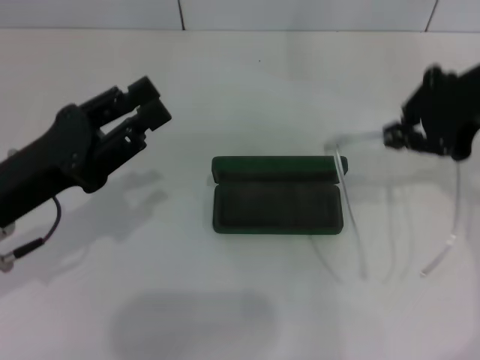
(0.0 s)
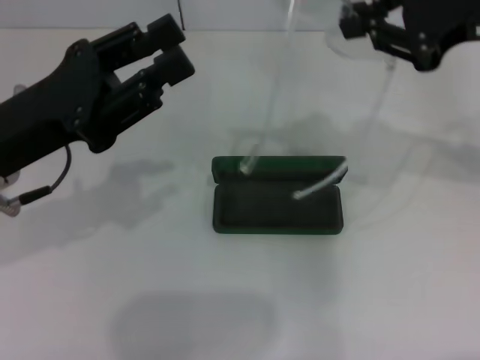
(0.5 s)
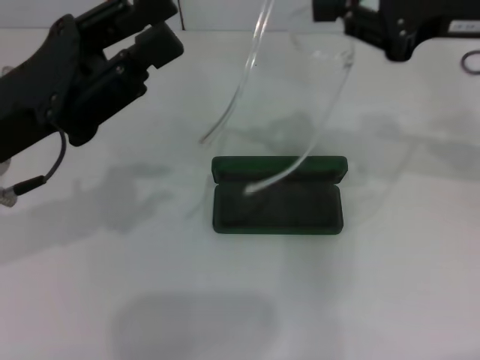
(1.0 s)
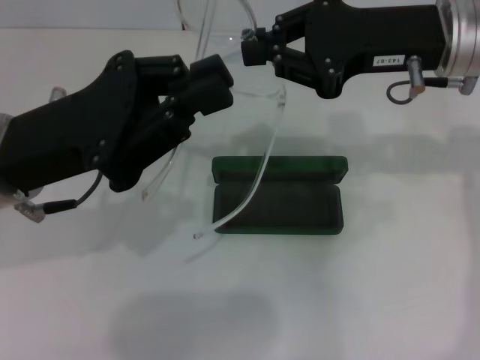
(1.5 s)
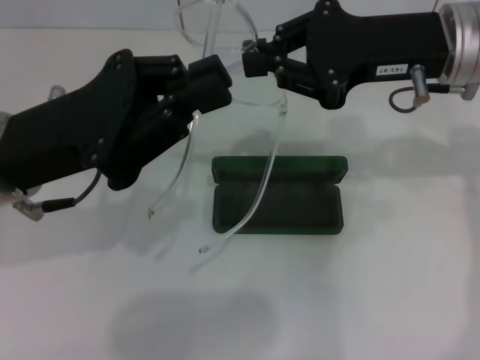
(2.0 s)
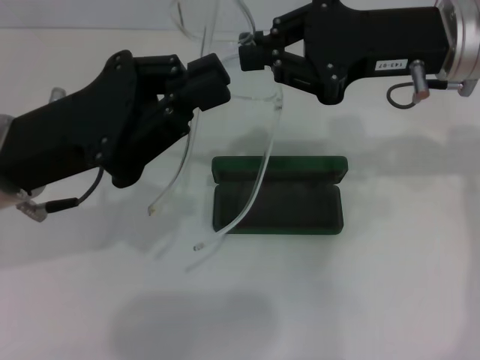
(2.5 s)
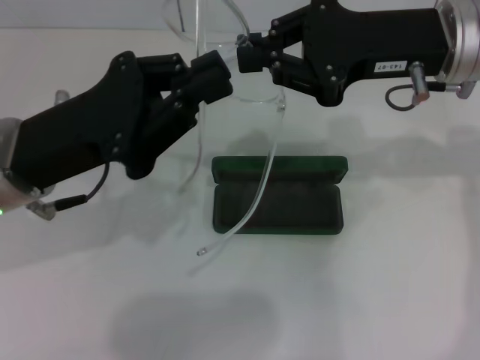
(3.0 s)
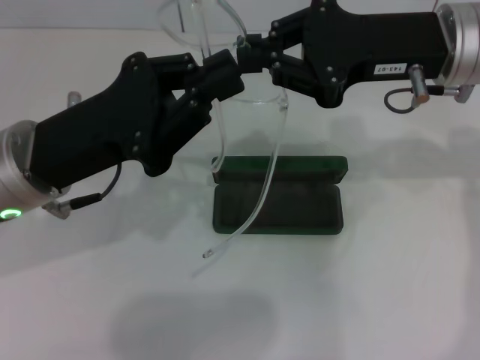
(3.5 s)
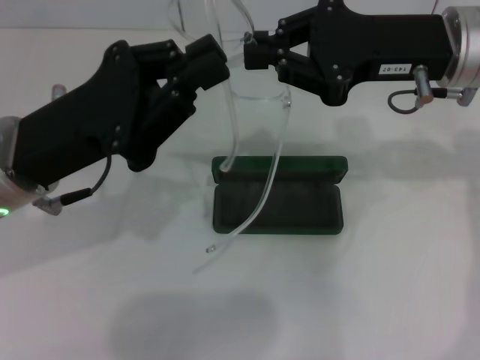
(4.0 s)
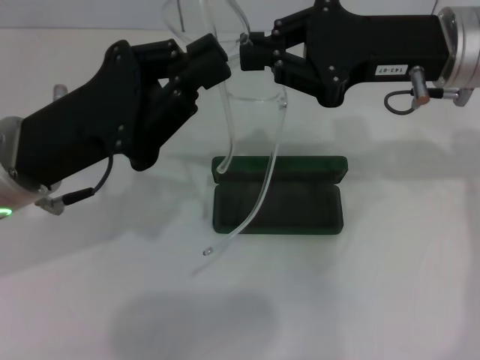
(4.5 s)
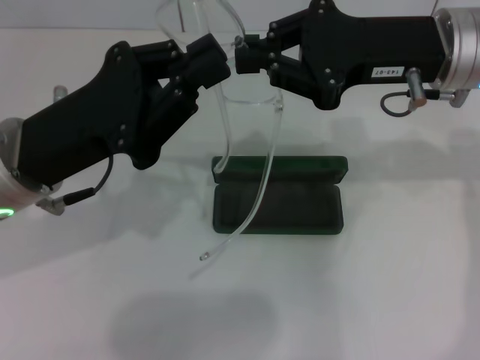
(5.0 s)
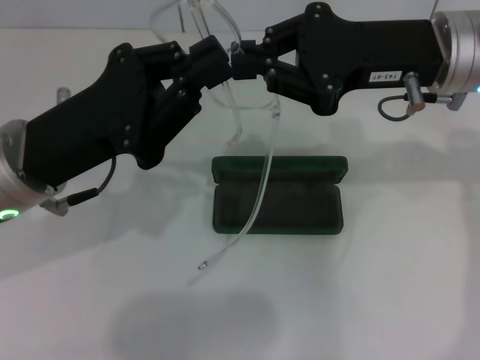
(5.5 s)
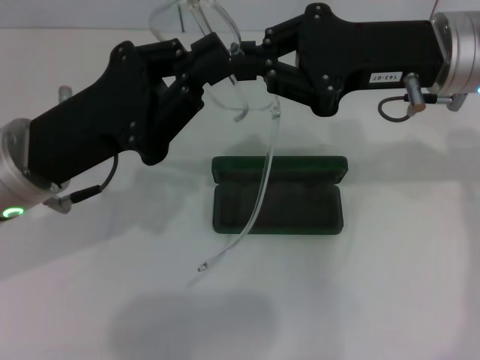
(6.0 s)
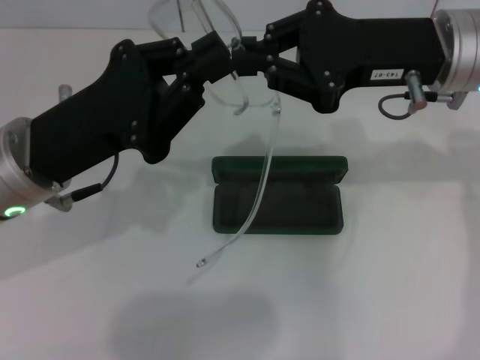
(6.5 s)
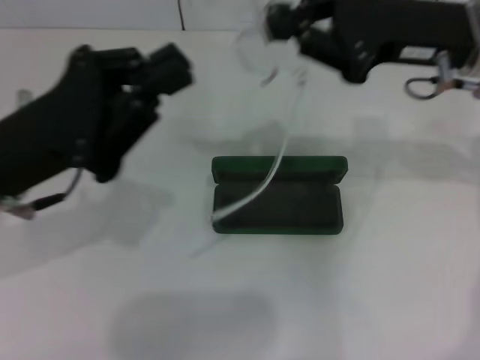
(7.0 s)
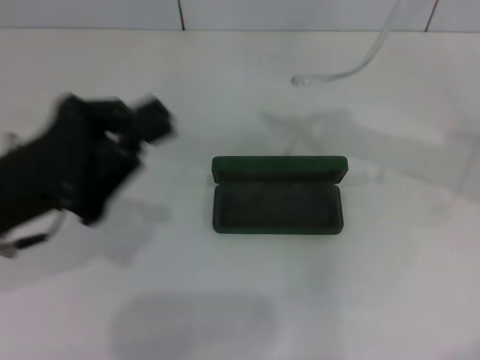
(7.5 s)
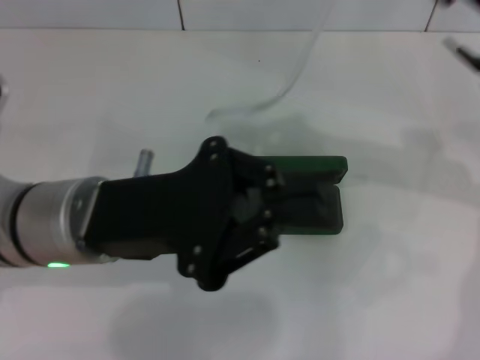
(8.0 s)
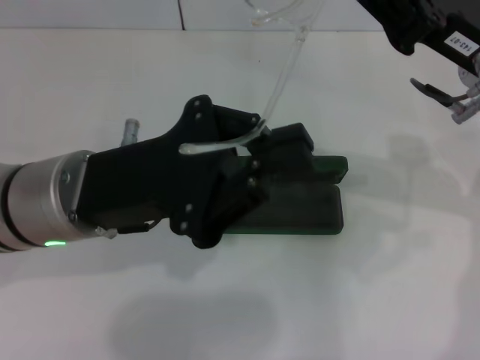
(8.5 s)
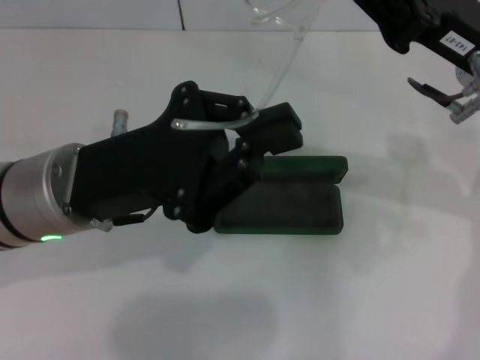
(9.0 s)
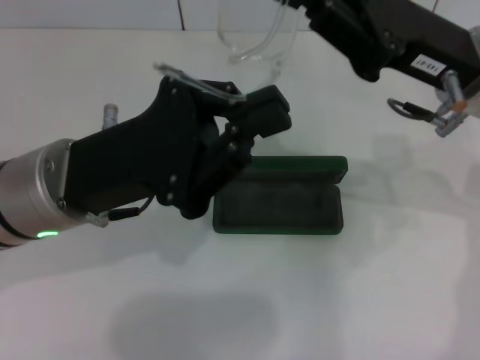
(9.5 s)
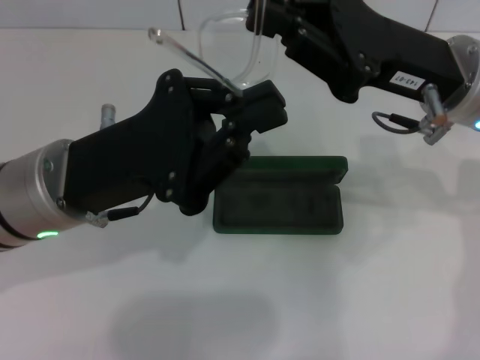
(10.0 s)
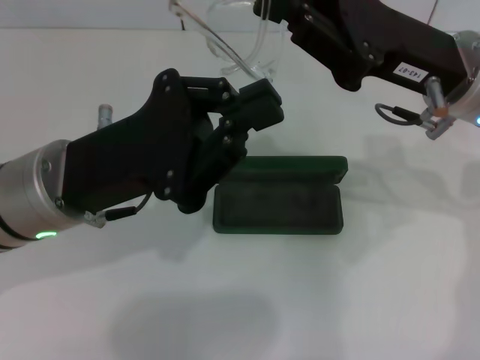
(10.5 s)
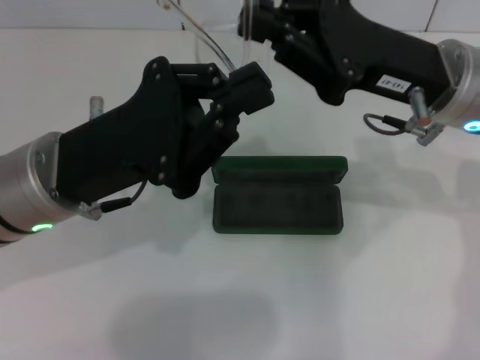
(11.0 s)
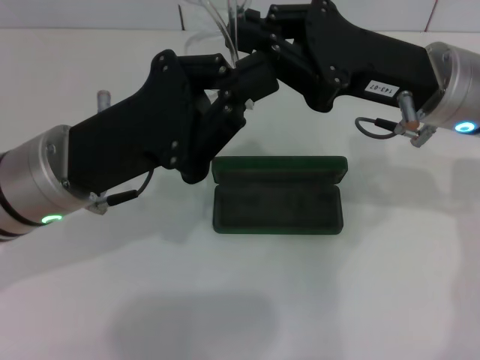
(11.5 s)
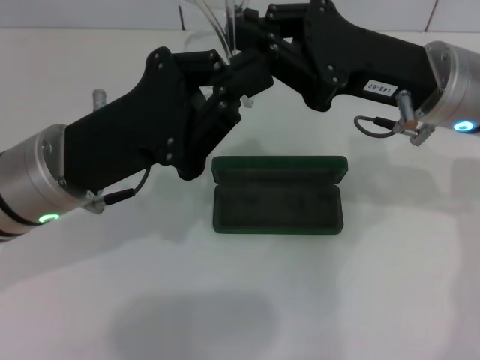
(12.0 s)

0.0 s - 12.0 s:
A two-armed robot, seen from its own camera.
0.0 s - 2.0 s: The left gripper shifts by roughly 5 cm; the right gripper moves approximately 5 cm.
2.0 s - 4.0 s: There are only small adjustments of the grippers.
4.0 s - 6.0 s: The two grippers keep their place.

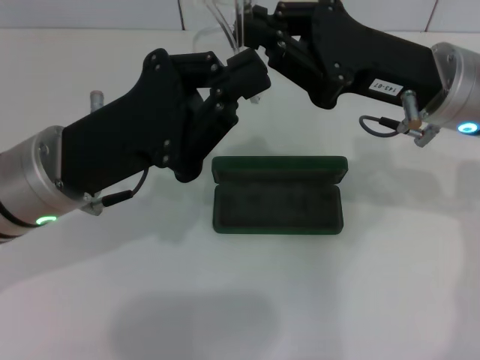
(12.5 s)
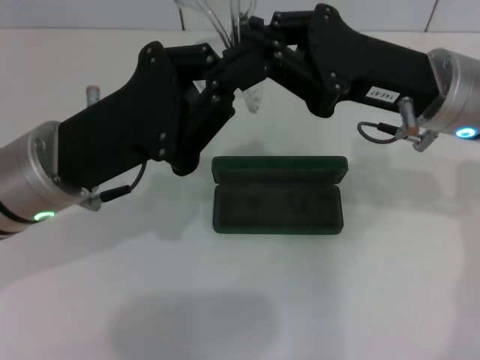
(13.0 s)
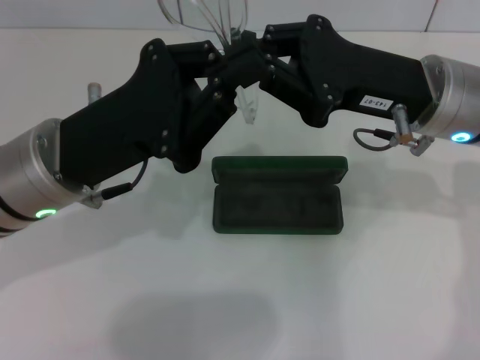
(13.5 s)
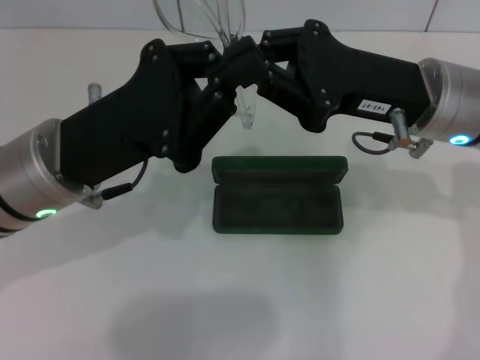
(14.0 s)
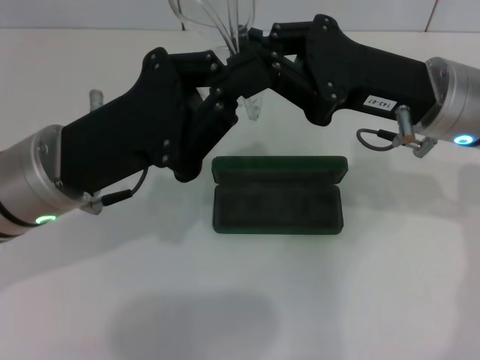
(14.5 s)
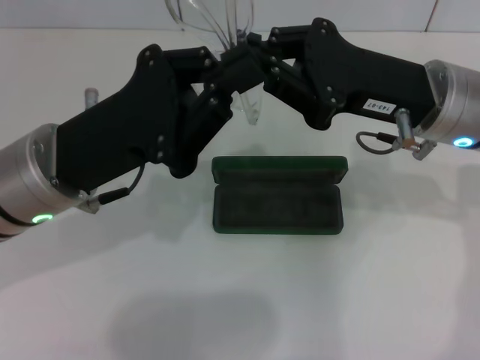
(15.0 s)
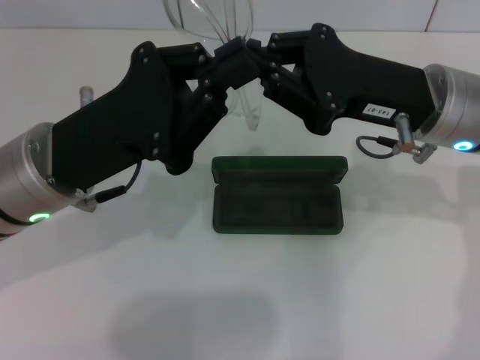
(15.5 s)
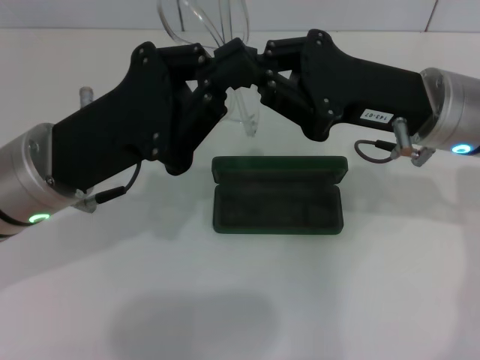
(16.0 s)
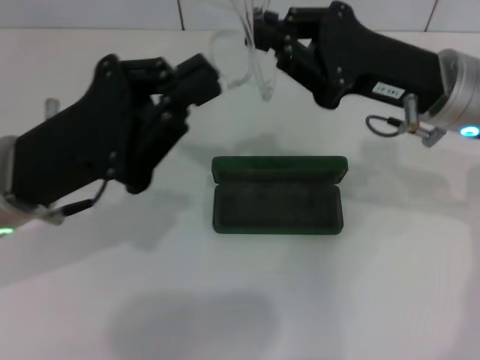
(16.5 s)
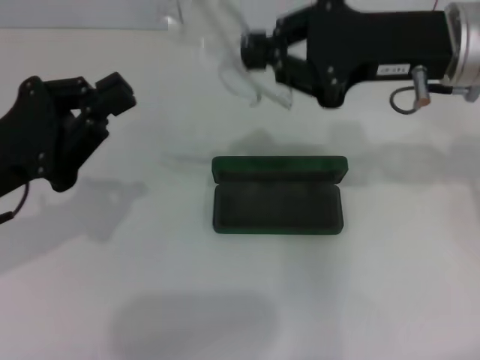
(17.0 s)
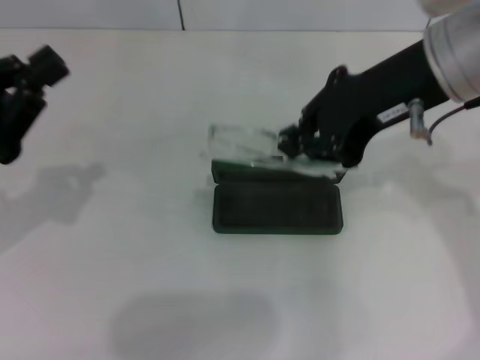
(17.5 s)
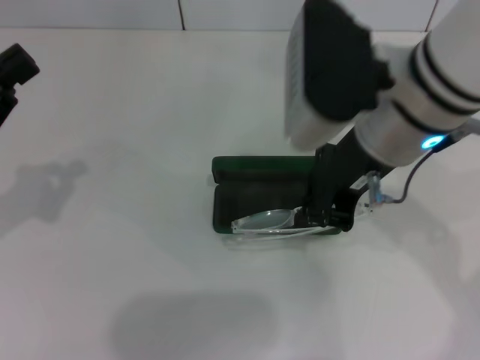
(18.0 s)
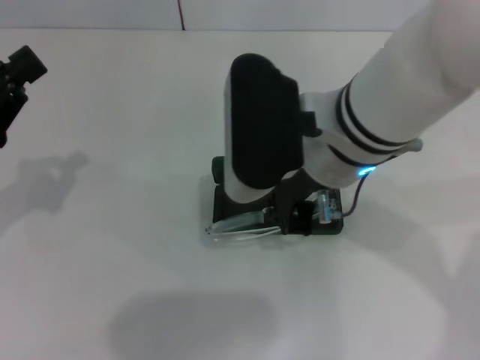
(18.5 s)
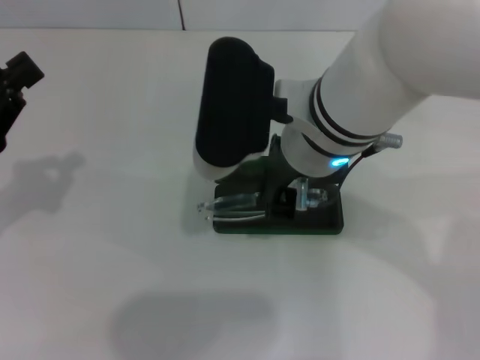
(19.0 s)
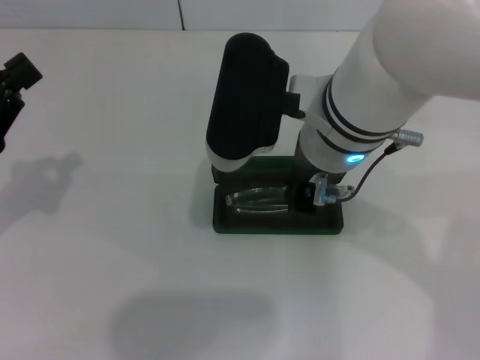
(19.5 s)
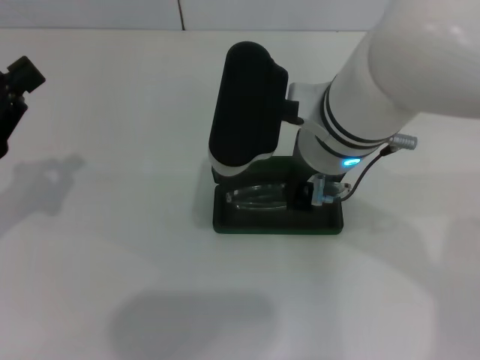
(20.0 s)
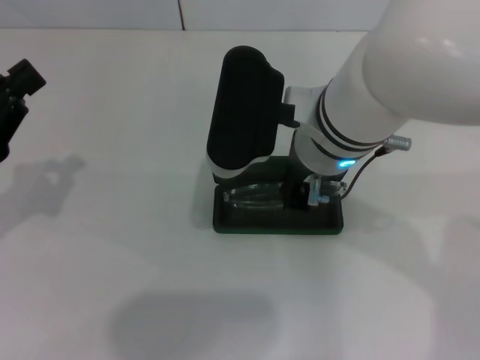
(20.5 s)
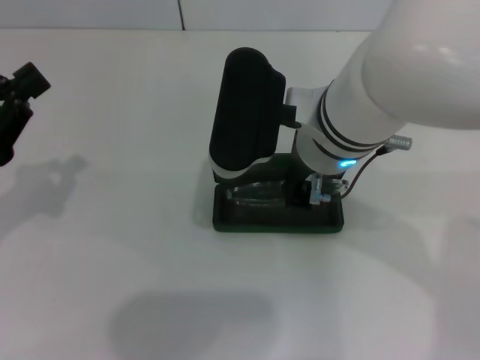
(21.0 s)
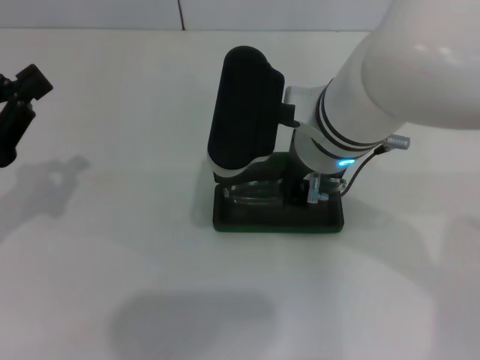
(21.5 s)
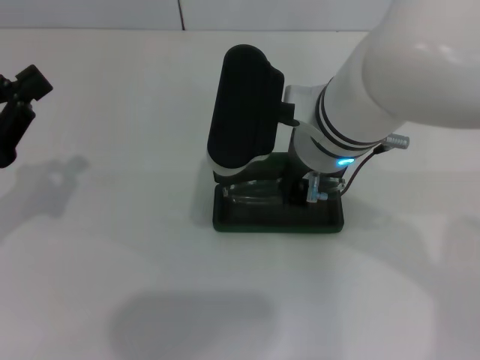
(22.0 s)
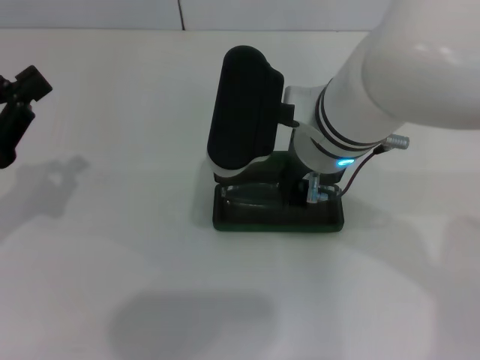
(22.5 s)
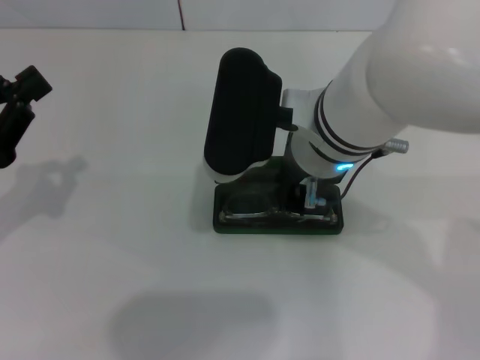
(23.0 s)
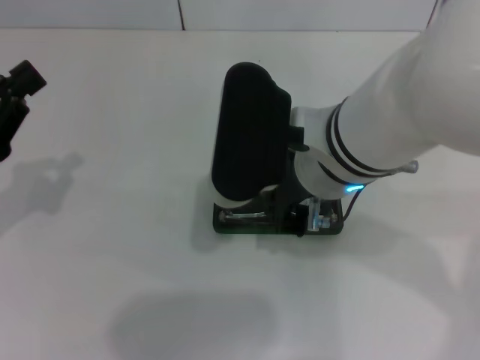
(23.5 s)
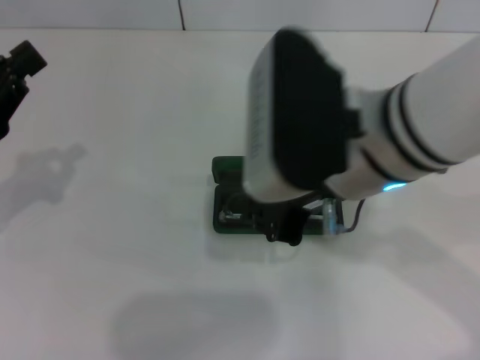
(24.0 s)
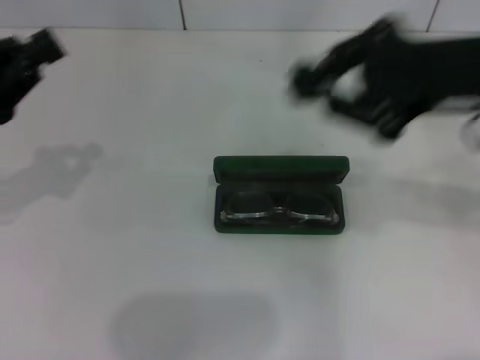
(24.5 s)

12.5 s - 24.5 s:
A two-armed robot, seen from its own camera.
Step, 13.0 s - 23.5 s: Put the glasses into the case with your right hand.
12.5 s - 14.5 s: Neither gripper changes place.
14.5 s - 16.5 s: There are only small adjustments of the grippers.
16.5 s - 18.5 s: The two grippers go some 10 cm to the left.
18.5 s - 20.5 s: The grippers move only a little.
20.5 s - 22.5 s: The two grippers keep their place.
22.5 s - 24.5 s: The right gripper travels to the right and upward by roughly 20 cm. The left gripper changes place by about 5 cm.

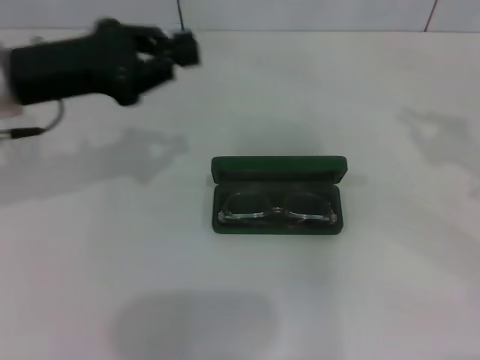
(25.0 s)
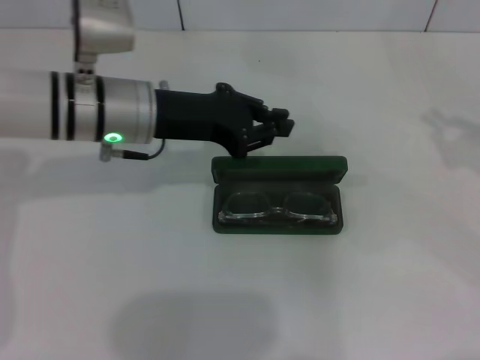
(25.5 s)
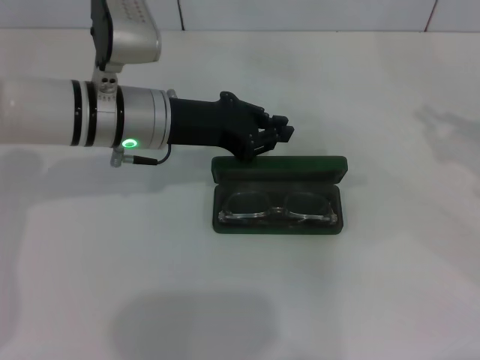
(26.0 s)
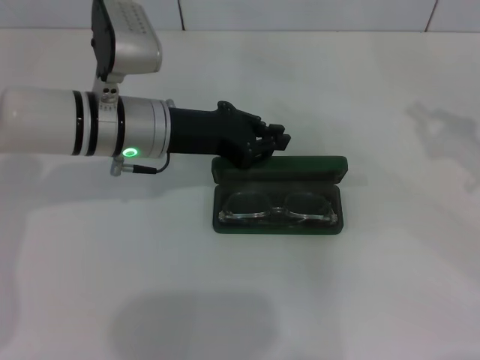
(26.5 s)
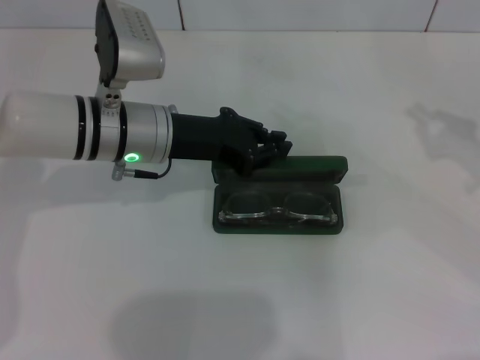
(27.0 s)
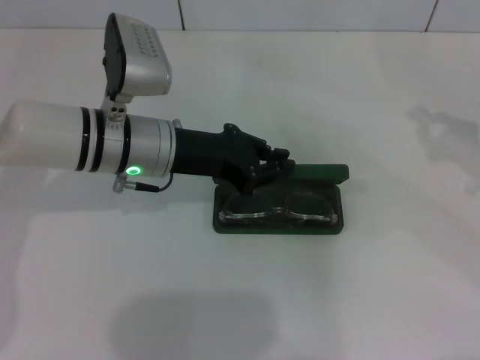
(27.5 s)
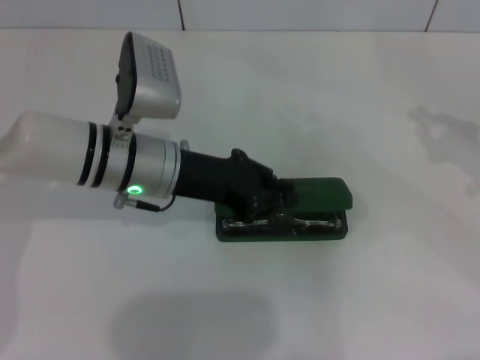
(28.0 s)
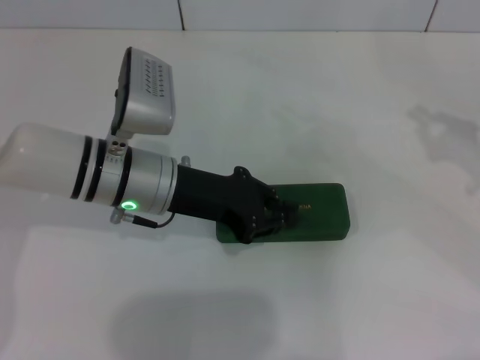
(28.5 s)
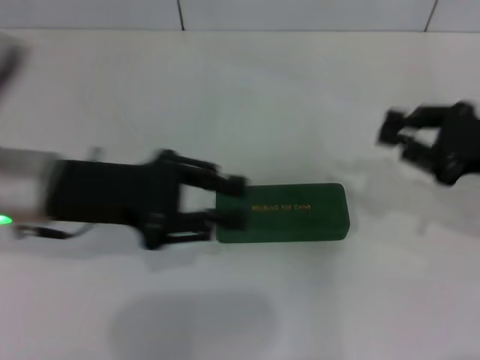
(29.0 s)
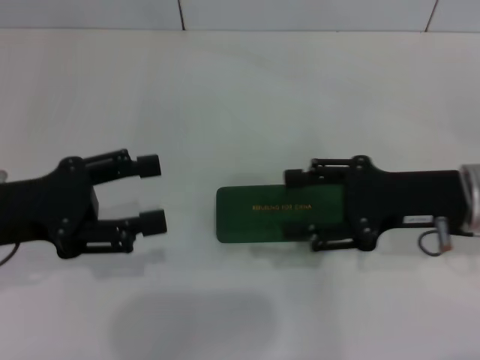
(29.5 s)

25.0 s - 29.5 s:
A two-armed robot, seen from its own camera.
Step, 25.0 s - 28.5 s: Close the glasses case with your left hand.
25.0 s - 27.0 s: The right gripper goes roughly 5 cm downward, while the left gripper moves to the right and downward, some 15 cm.
27.0 s - 29.5 s: The left gripper goes about 20 cm to the left and backward, and opens, while the right gripper is displaced to the left by about 15 cm, and opens its fingers.
